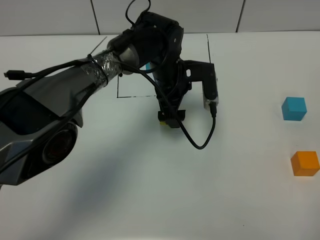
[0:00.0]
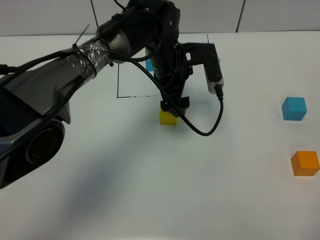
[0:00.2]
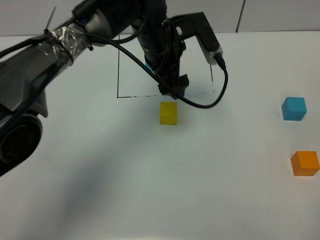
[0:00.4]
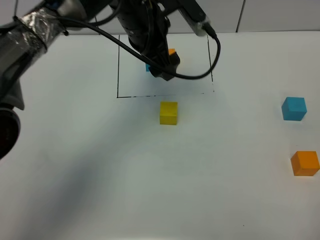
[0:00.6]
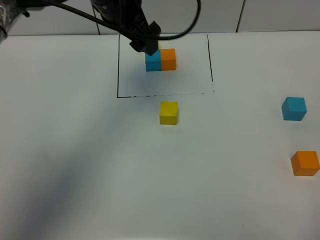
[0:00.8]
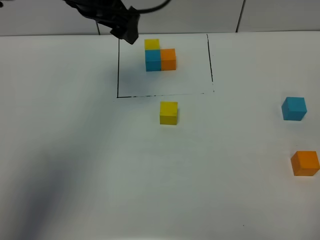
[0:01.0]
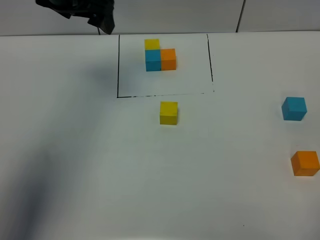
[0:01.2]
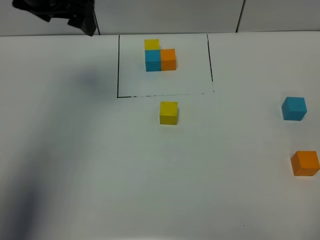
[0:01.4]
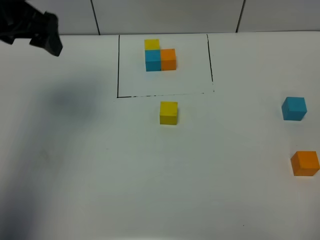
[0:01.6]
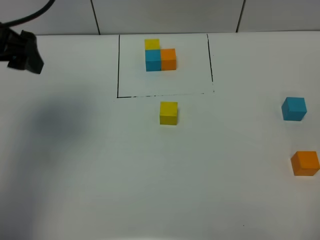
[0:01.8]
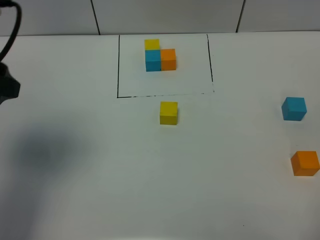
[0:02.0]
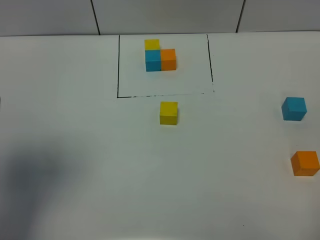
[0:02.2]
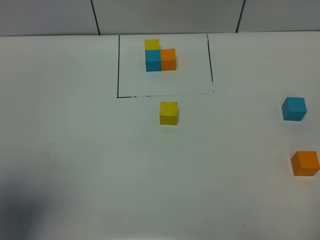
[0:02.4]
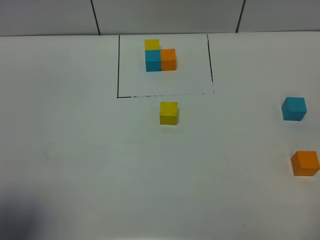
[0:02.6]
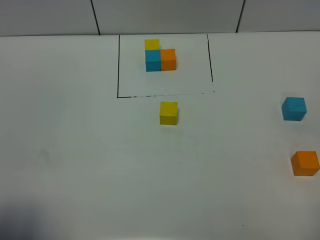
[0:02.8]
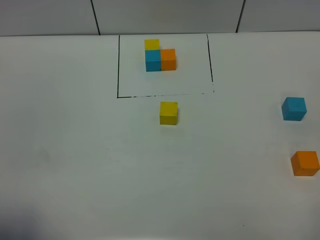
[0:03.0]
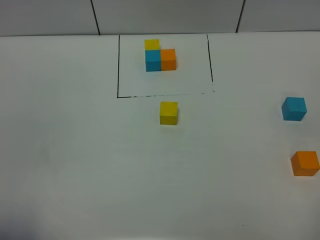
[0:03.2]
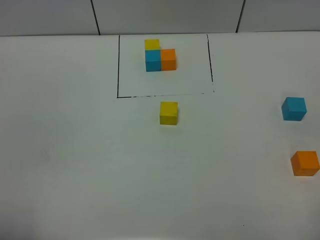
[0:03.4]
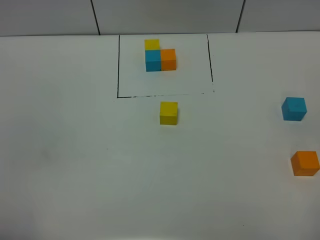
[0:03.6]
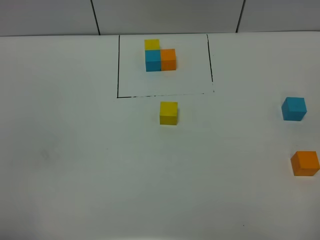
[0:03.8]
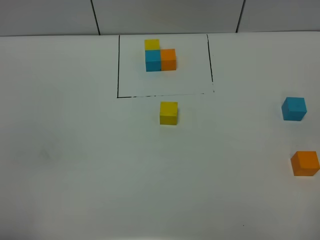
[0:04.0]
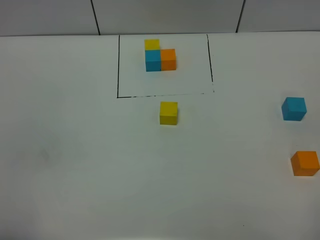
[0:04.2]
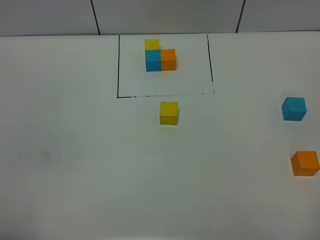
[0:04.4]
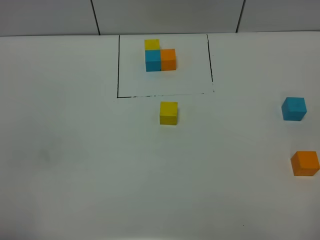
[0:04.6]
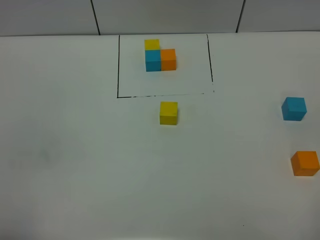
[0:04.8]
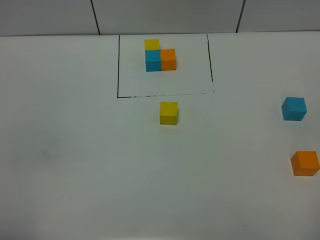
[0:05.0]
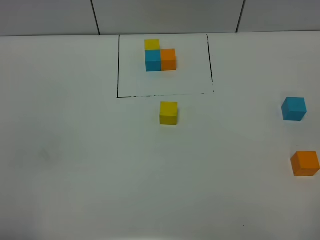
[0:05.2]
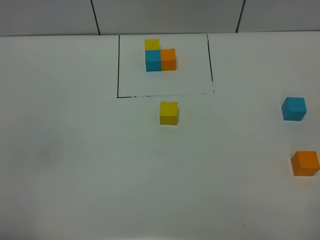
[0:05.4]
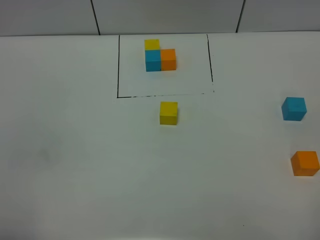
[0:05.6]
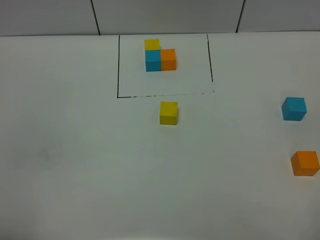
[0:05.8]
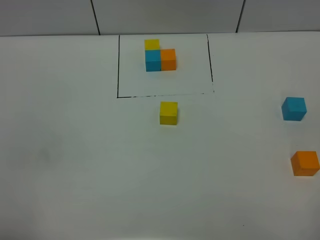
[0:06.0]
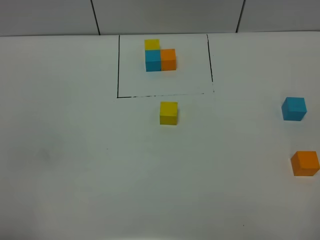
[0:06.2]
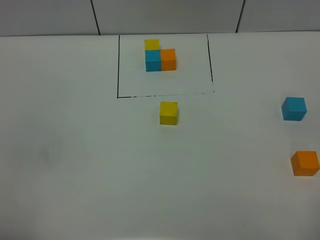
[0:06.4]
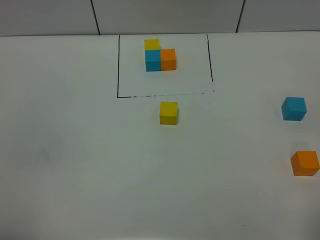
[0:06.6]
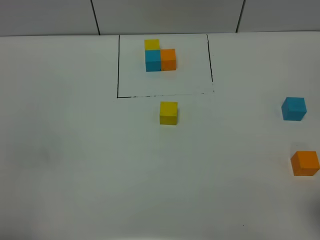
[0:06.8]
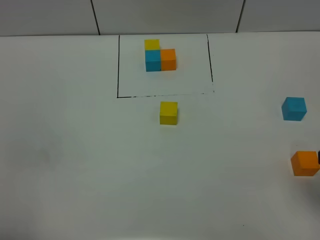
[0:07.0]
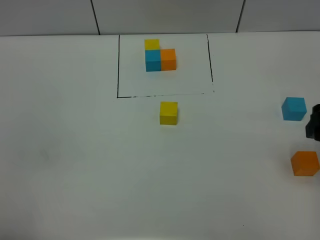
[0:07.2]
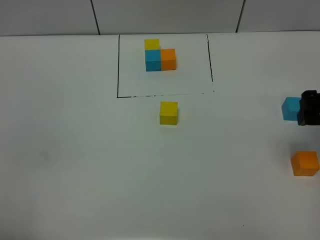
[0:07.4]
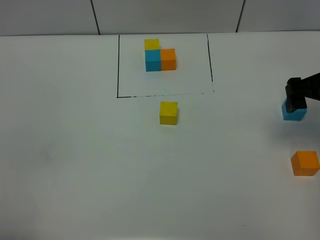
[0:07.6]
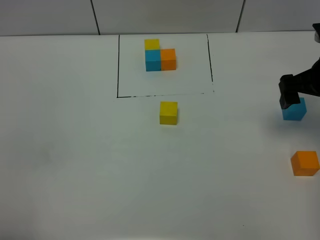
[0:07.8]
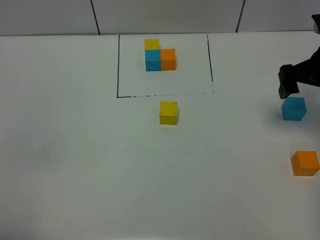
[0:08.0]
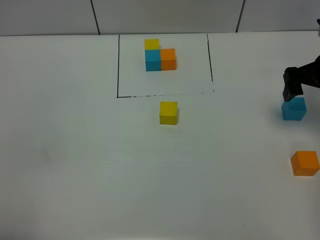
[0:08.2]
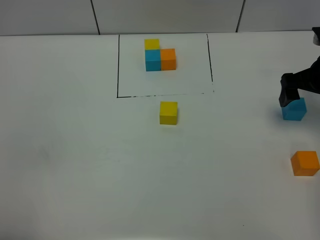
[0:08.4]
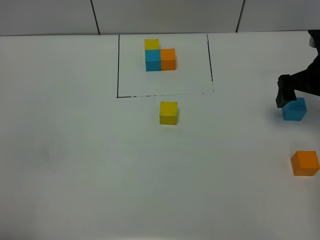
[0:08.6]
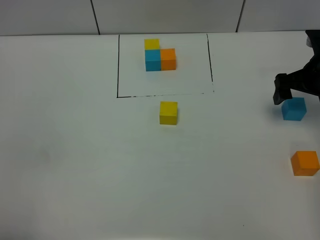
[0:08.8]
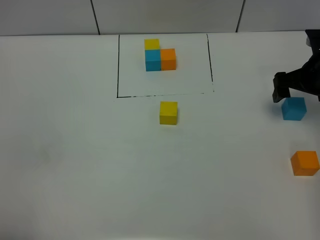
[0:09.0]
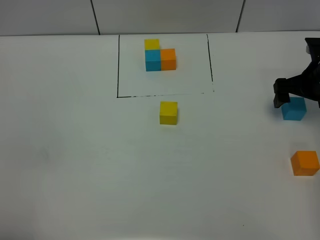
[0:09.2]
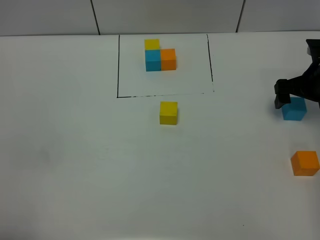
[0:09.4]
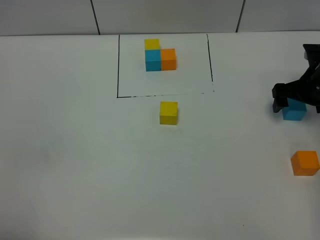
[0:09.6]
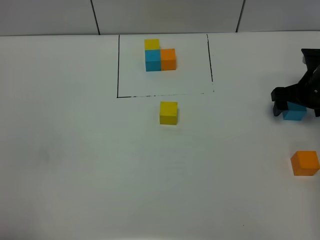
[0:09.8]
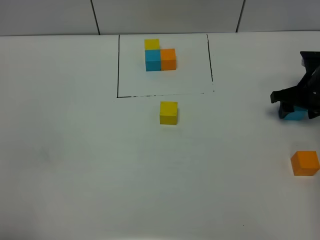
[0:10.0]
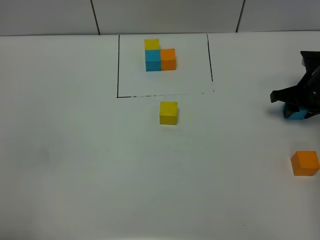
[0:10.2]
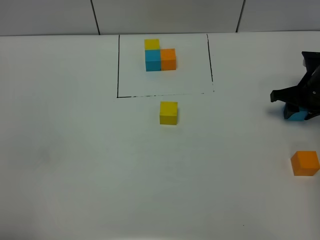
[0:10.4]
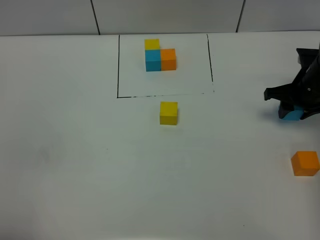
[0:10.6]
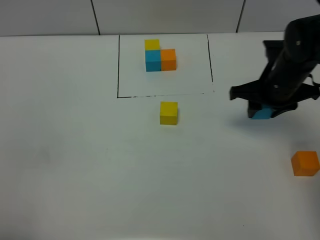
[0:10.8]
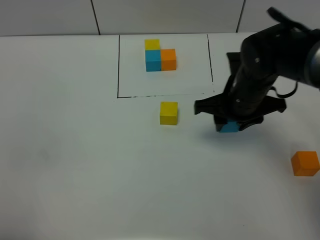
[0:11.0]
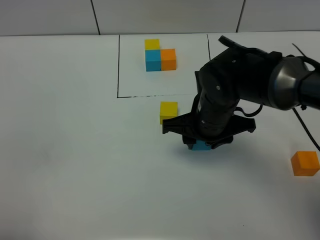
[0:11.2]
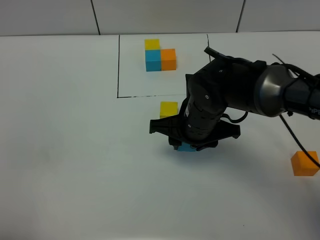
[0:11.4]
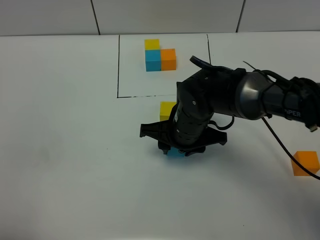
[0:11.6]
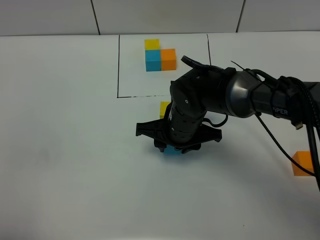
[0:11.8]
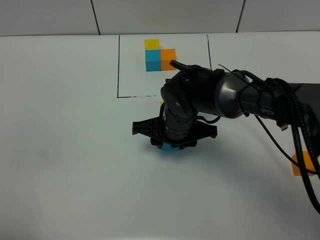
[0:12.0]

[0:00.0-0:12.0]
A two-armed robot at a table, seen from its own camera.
Task of the whole recording: According to the building block template in front, assemble the scattered blocks together.
0:00.0 to 0:01.6: The left gripper shifts approximately 30 cm to the left and upward.
0:01.6 to 0:03.0: The left gripper is displaced backward by roughly 35 cm.
0:04.4 to 0:06.0: The two grippers keep their place.
0:06.0 to 0:07.6: The right gripper heads forward, covering roughly 30 cm.
0:07.6 to 0:09.0: The right gripper heads downward and forward, covering roughly 10 cm.
0:09.0 to 0:10.4: The right gripper travels downward by some 5 cm, and closes its fingers.
0:10.4 to 0:12.0: The right gripper moves to the left, approximately 30 cm.

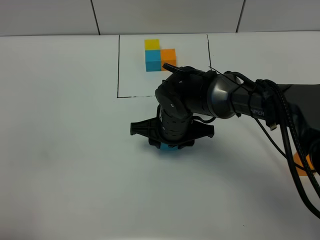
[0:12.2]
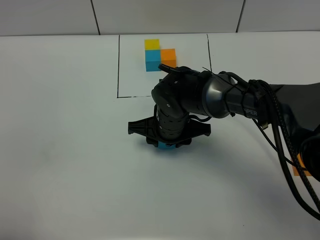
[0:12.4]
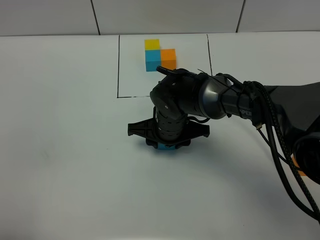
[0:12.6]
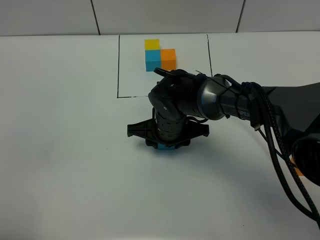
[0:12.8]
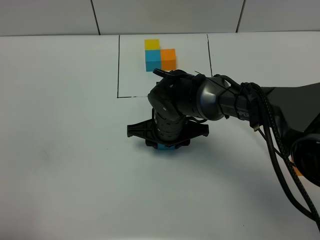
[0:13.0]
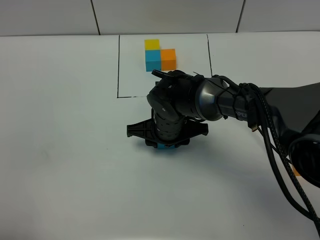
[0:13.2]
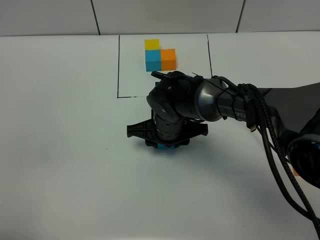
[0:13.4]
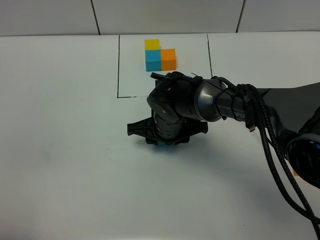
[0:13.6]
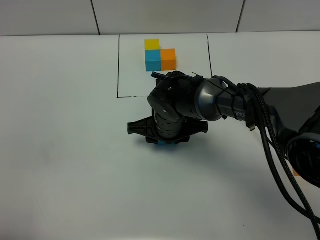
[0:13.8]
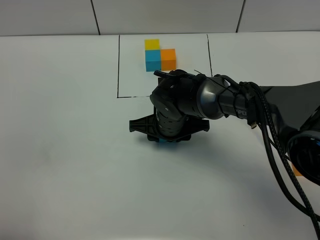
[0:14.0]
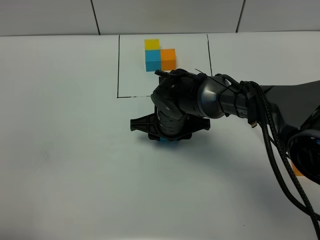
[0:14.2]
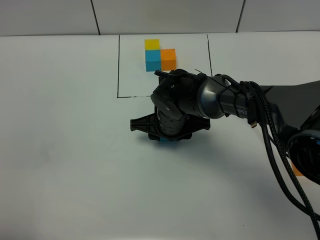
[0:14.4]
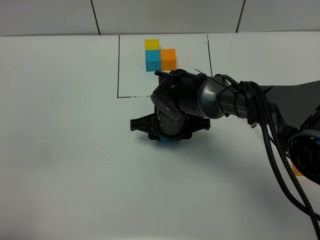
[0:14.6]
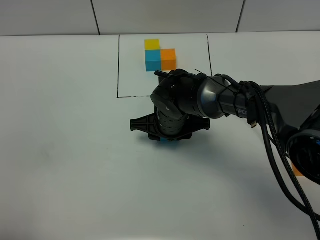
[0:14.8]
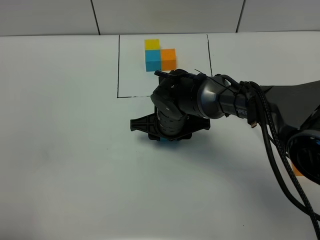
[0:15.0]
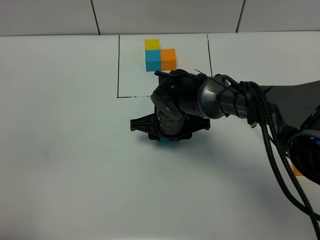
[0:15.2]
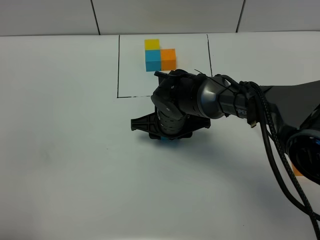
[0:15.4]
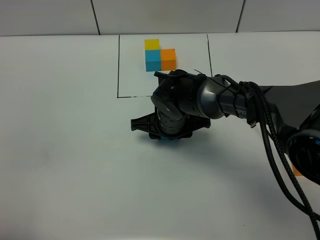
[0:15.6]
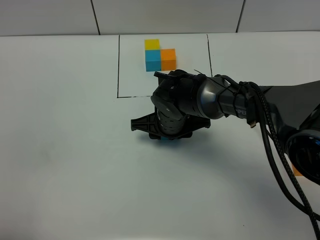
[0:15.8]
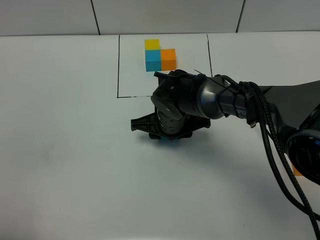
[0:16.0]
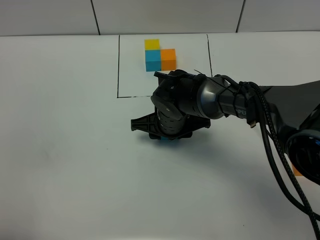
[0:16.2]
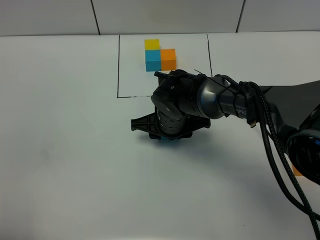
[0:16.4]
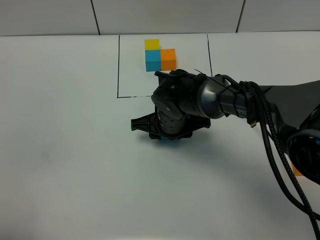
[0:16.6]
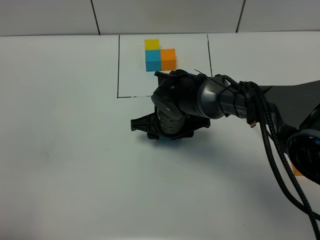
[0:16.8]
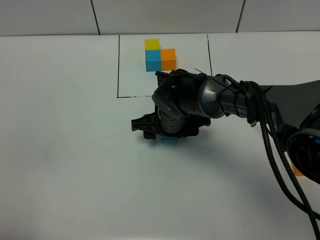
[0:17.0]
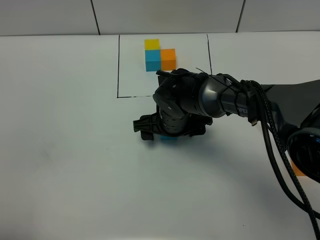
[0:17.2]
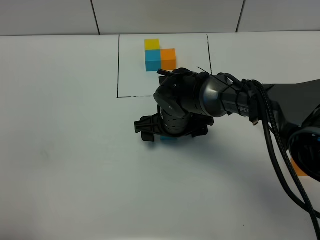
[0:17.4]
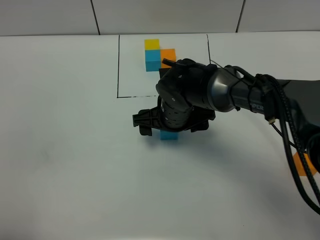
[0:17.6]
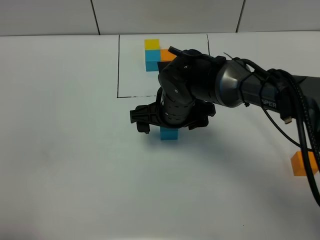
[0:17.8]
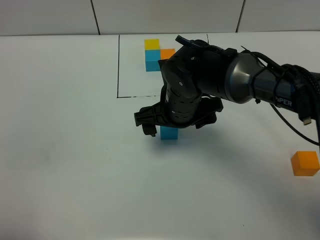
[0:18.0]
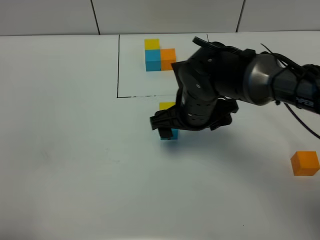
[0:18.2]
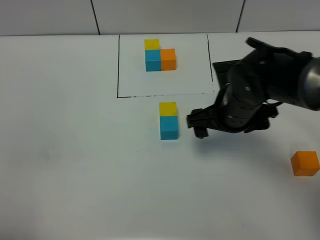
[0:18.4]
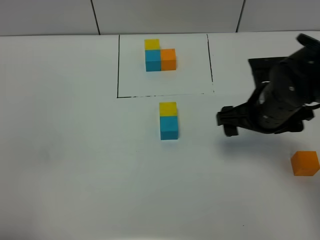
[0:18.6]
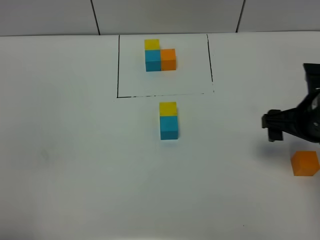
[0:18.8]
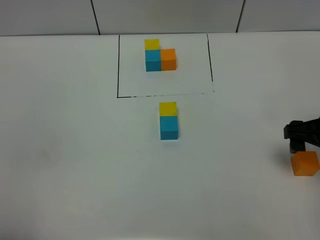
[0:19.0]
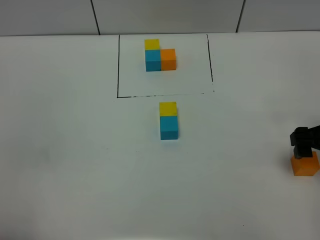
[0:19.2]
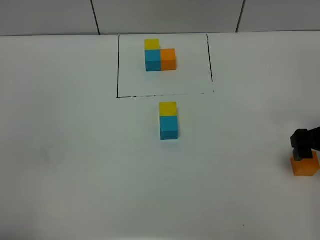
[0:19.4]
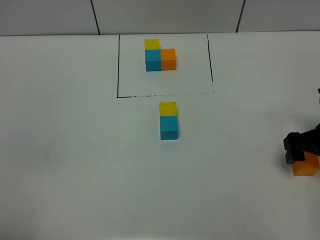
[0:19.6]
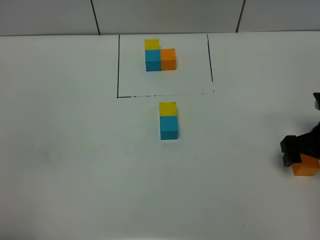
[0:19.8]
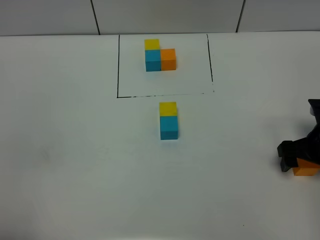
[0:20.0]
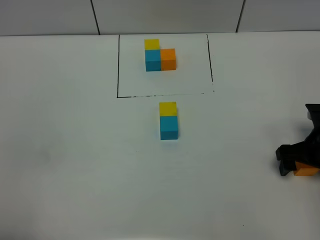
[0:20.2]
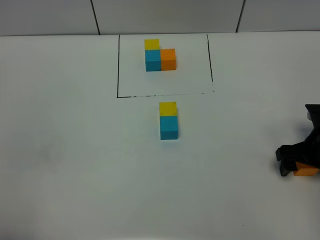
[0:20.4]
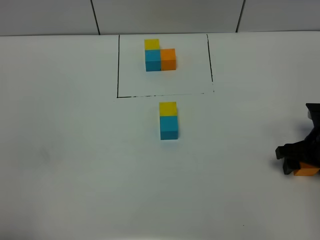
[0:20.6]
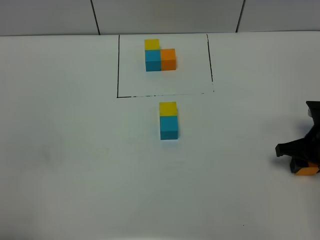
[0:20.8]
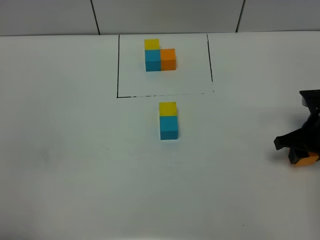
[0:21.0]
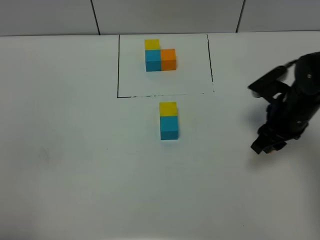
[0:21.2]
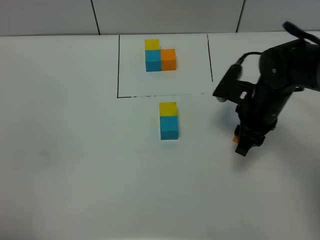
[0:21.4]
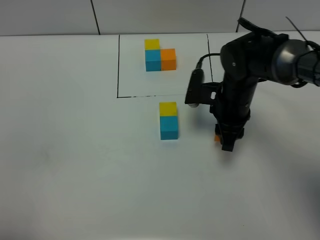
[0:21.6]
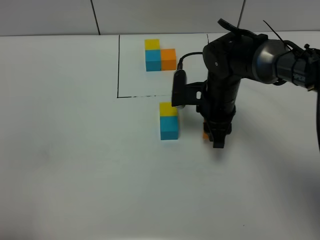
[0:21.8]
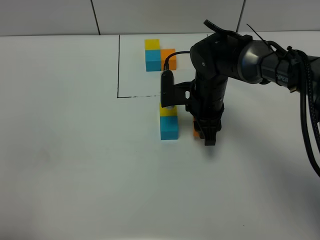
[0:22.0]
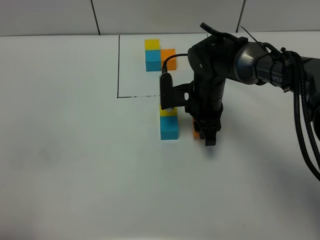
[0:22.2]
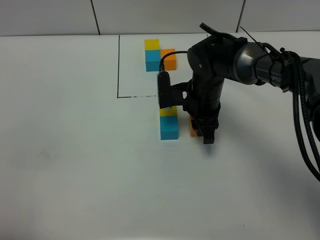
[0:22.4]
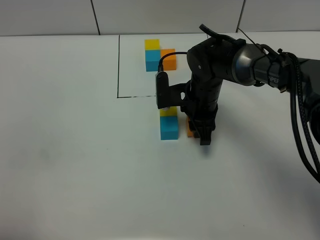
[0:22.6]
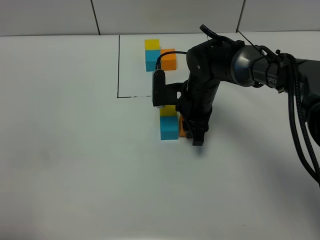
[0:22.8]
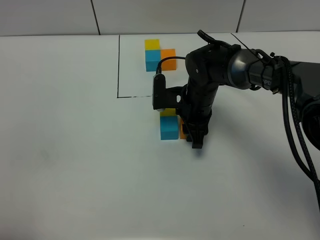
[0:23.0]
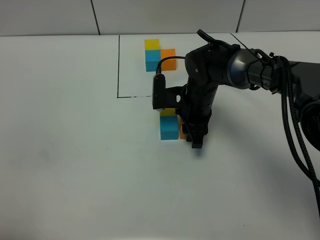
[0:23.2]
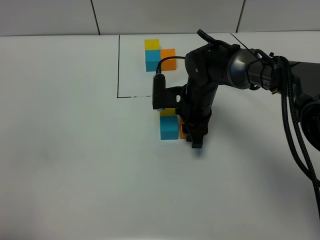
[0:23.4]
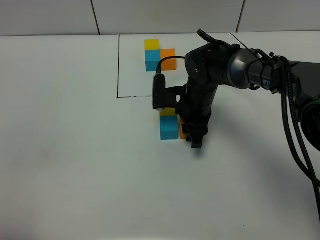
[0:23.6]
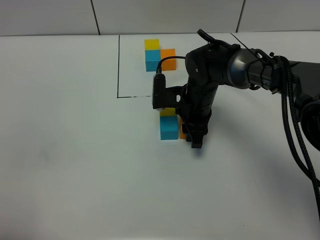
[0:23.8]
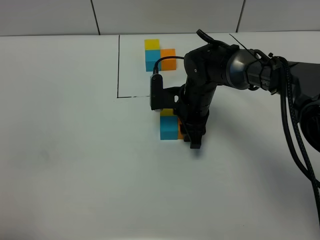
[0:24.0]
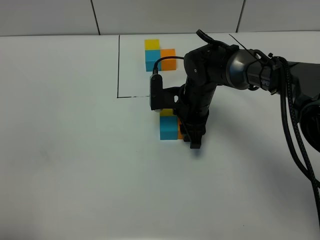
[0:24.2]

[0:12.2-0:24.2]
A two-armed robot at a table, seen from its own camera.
Task of the whole recording: According to the building block template in front, assemble the scattered blocks together.
Step, 0:12.2 to 0:17.4: Put the blue build block on the behind of the yellow build block.
0:12.2 to 0:13.8: The grippers move only a little.
0:13.8 to 0:16.6: The two grippers keep their place.
0:16.6 to 0:18.2: The right gripper moves upward, roughly 5 cm, and opens its fingers.
0:18.2 to 0:19.8: The right gripper shifts approximately 25 cm to the right.
0:19.8 to 0:21.2: The right gripper heads to the left and forward, covering about 10 cm, and closes its fingers.
0:21.2 to 0:22.6: The right gripper heads to the left and forward, covering about 15 cm.
0:22.6 to 0:24.2: There are only small adjustments of the grippers.
